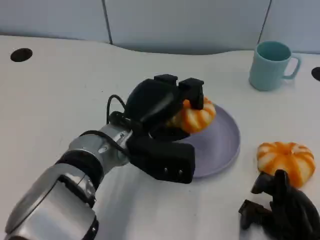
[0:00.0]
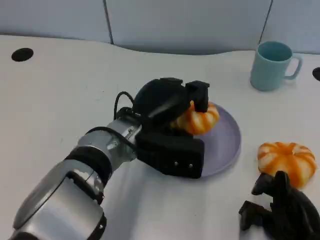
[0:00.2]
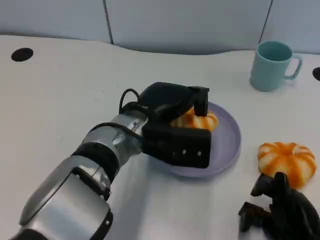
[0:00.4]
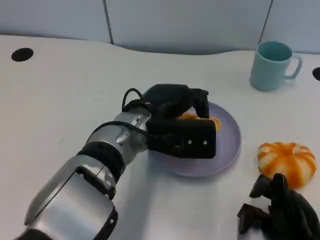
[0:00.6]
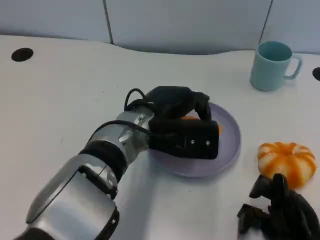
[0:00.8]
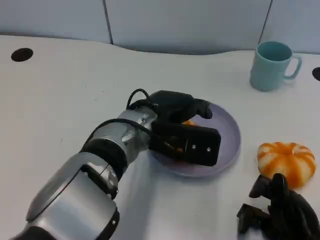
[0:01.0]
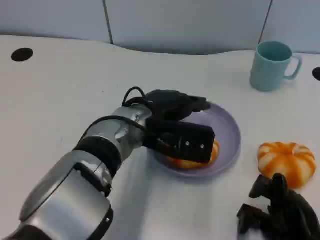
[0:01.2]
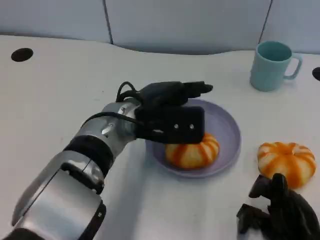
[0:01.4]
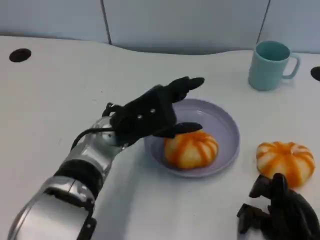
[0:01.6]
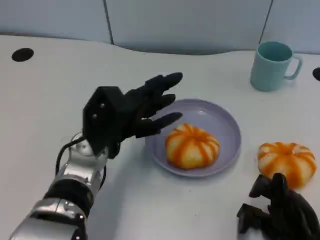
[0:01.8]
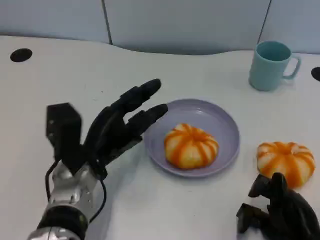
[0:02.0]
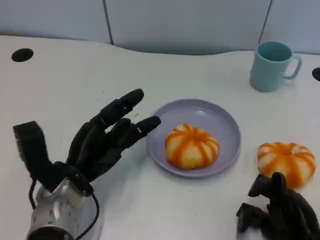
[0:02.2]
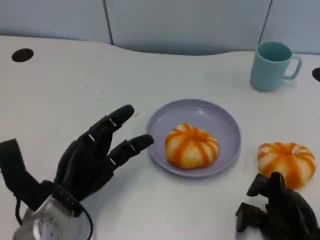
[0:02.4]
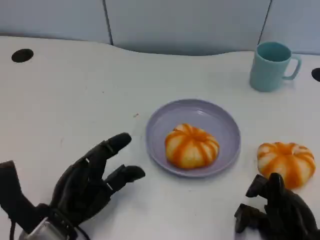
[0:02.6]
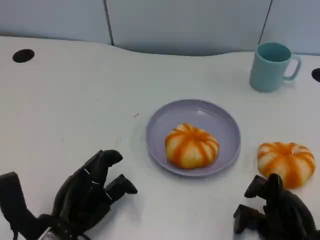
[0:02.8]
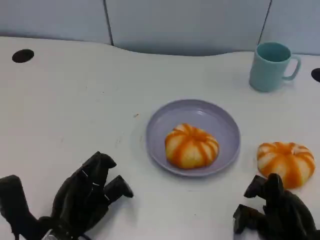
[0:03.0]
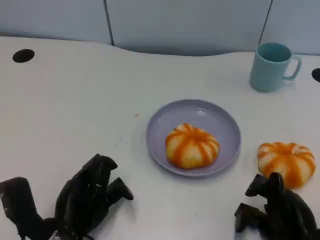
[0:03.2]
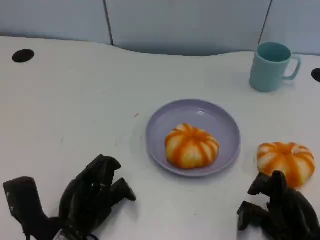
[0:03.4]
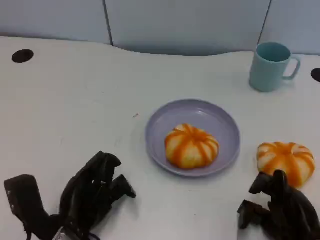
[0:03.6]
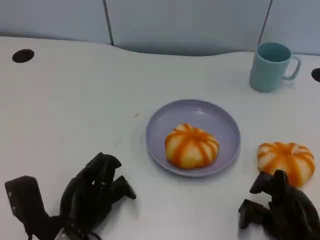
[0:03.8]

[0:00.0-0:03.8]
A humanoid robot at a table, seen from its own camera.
Task of the whole recording: Grasp the bread from the table and place it into the plate.
0:01.2 to 0:02.6: The left hand heads to the left, backward and downward, covering some 20 cm.
0:02.6 to 0:03.8: The hands move only a little.

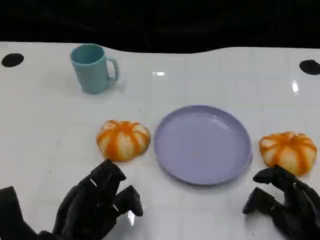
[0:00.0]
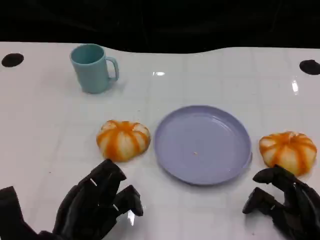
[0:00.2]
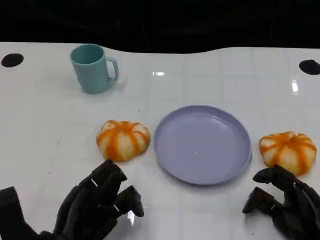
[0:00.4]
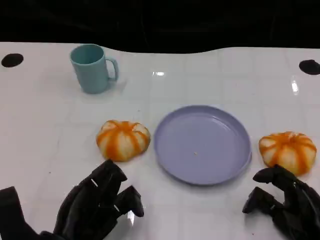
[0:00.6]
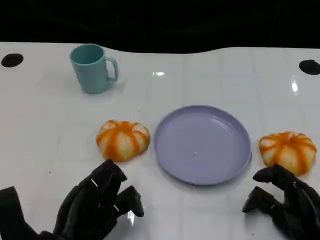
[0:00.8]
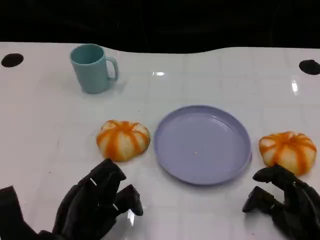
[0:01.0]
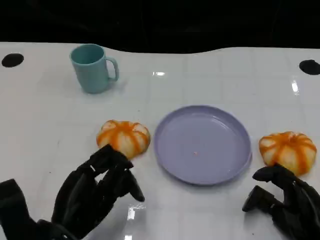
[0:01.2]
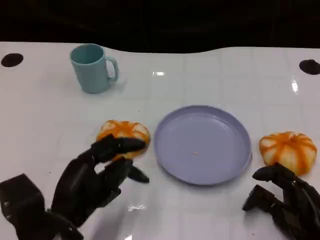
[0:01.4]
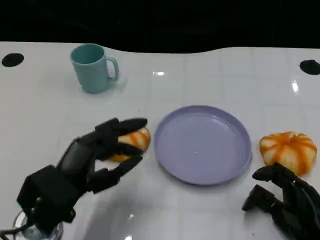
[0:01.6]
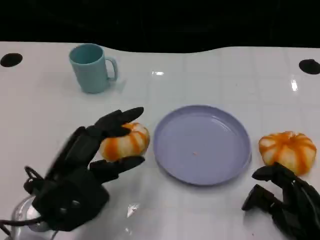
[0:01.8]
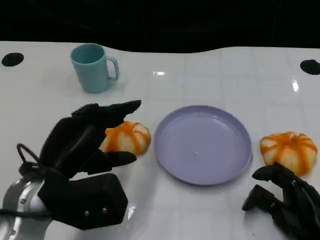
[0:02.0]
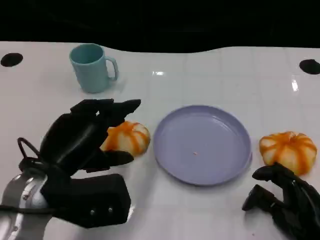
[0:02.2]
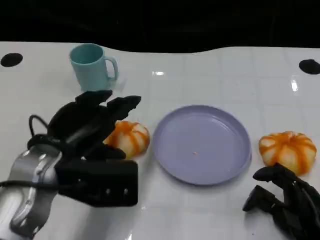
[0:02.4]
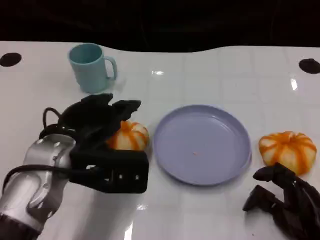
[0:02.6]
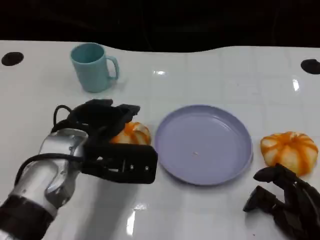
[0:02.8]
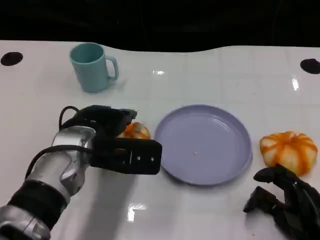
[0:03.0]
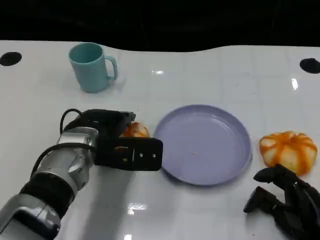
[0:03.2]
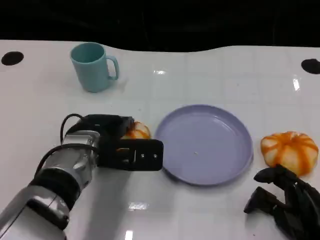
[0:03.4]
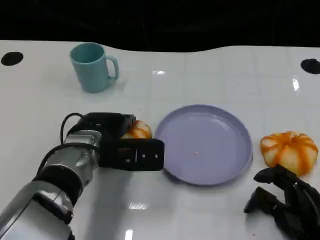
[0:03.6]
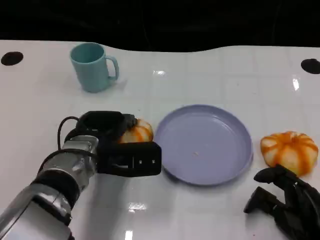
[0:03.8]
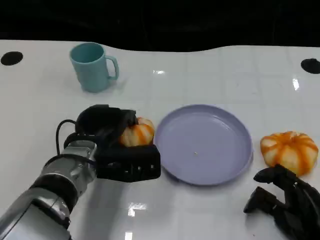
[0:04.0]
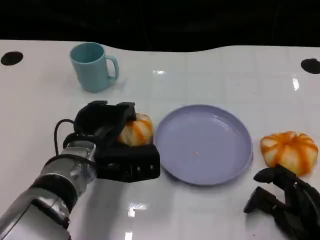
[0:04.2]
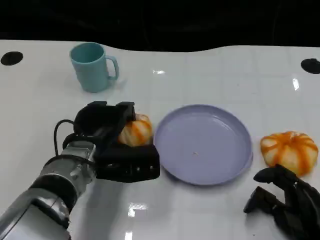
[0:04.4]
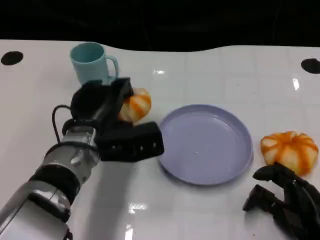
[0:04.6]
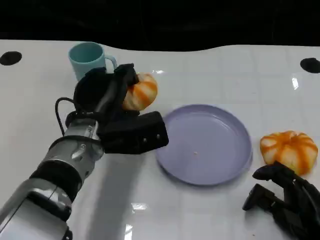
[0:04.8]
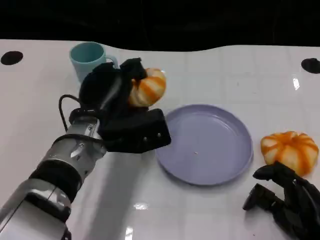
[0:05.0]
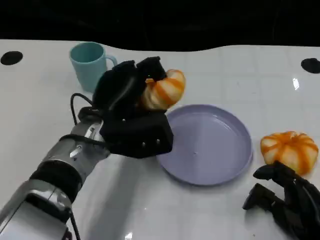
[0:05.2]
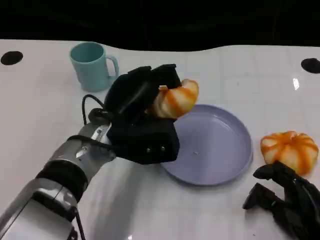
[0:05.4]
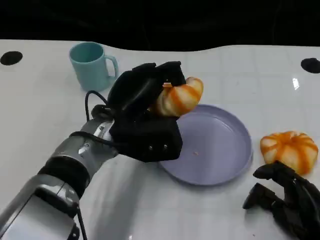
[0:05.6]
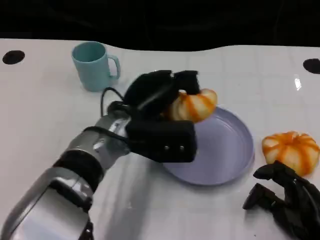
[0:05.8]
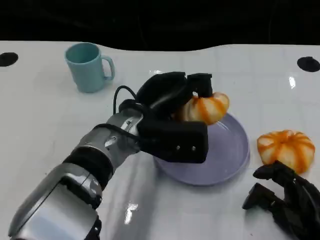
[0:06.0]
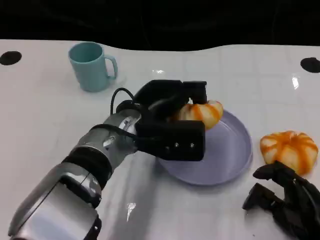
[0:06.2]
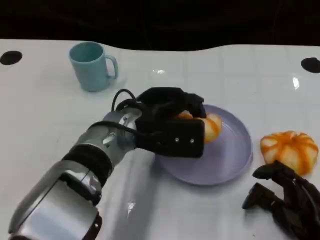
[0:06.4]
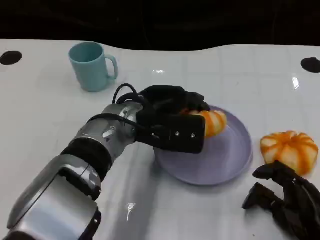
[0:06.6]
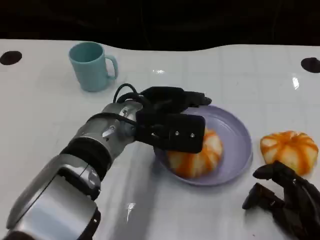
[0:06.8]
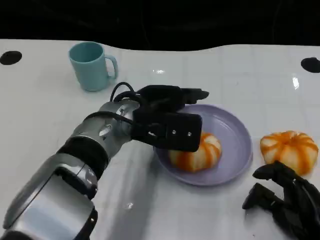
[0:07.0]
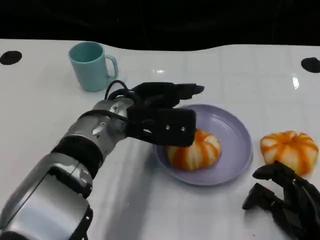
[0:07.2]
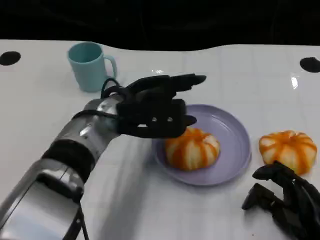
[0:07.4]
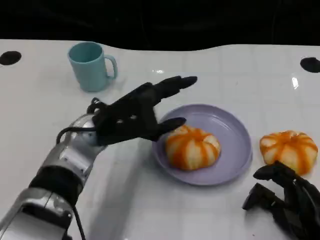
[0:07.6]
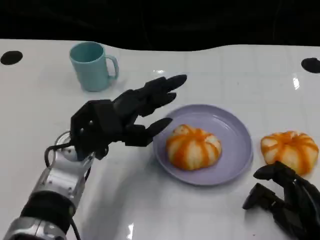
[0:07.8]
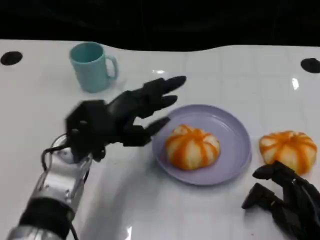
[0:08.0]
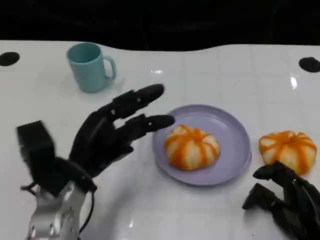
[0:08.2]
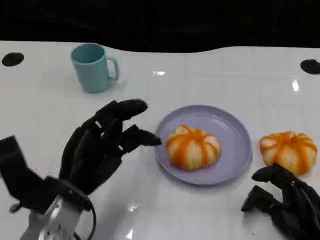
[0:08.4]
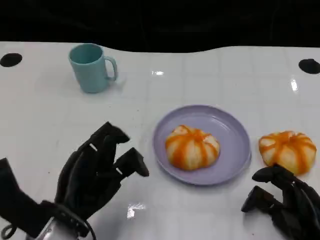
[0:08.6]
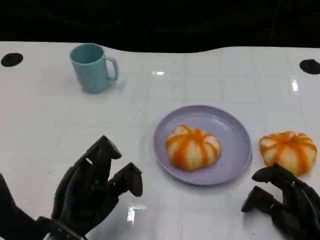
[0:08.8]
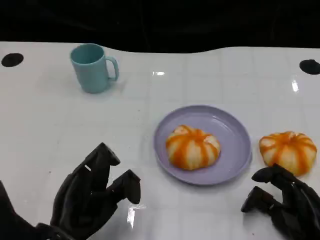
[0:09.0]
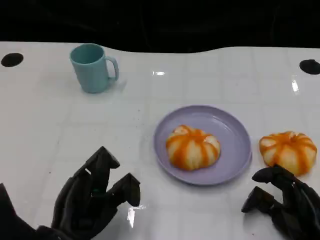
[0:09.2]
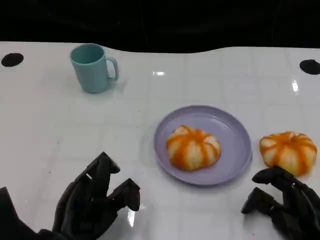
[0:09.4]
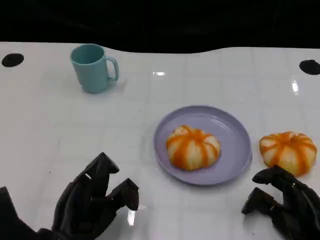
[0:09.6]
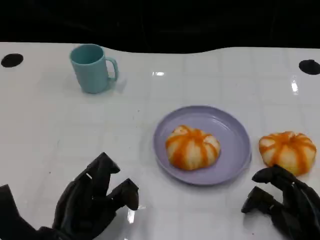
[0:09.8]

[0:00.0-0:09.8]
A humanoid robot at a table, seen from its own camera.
Task of the whole recording: Grasp the bread from the table and place it into the plate.
0:01.4 to 0:02.8: The left hand moves forward and upward, about 10 cm.
0:02.8 to 0:04.2: The left hand travels downward by about 5 cm.
0:04.2 to 0:05.6: The left hand moves upward, some 5 cm.
0:07.0 to 0:08.4: The left hand is displaced backward, to the left and downward by approximately 15 cm.
0:08.4 to 0:09.8: The left hand changes place by approximately 5 cm.

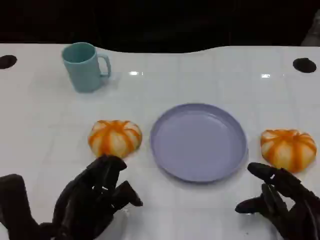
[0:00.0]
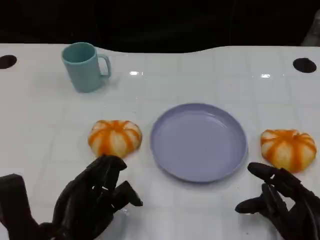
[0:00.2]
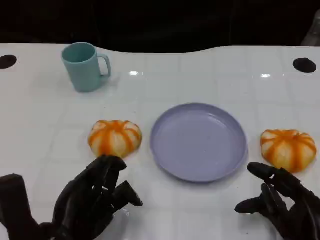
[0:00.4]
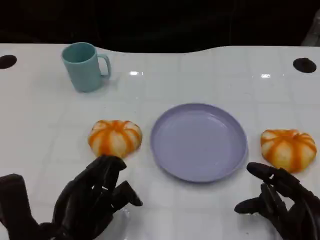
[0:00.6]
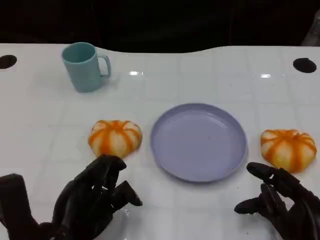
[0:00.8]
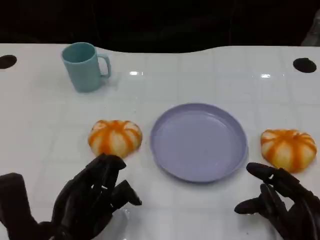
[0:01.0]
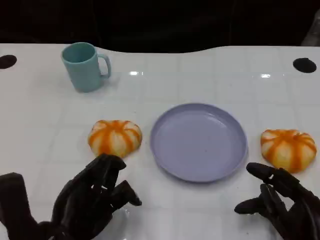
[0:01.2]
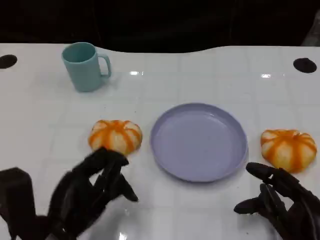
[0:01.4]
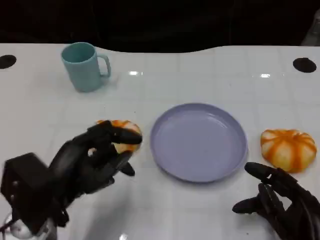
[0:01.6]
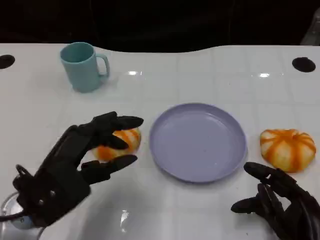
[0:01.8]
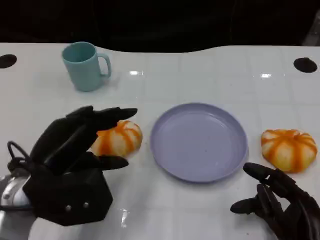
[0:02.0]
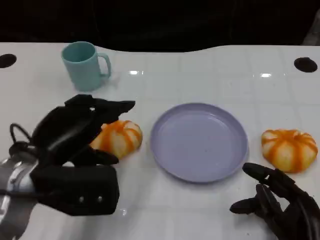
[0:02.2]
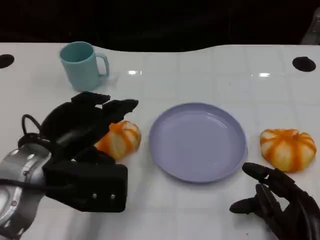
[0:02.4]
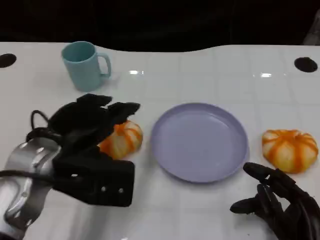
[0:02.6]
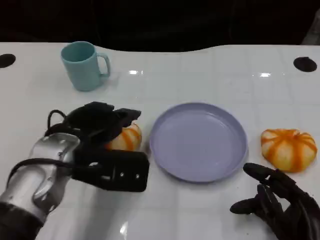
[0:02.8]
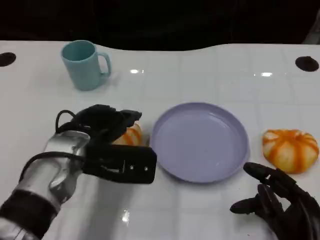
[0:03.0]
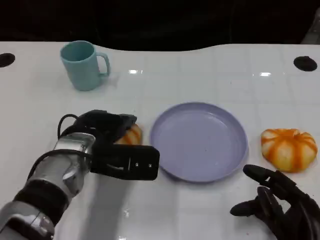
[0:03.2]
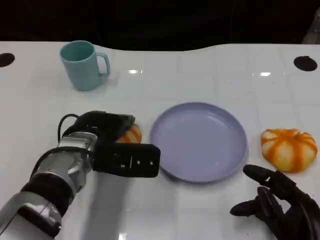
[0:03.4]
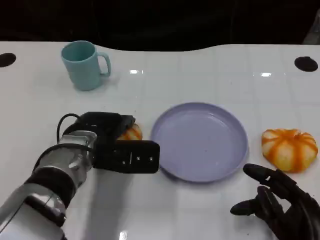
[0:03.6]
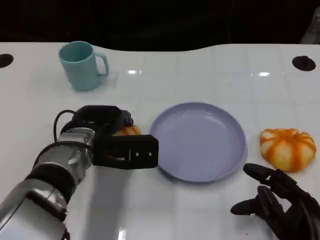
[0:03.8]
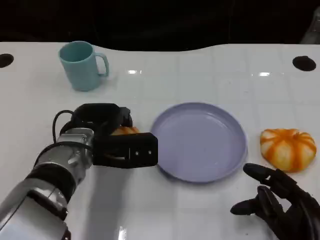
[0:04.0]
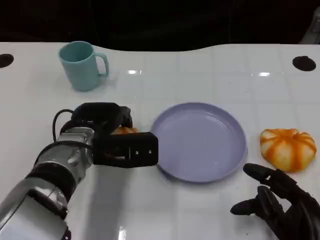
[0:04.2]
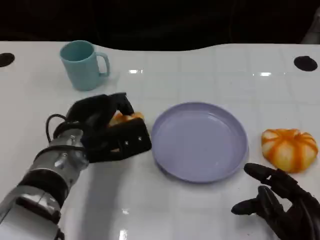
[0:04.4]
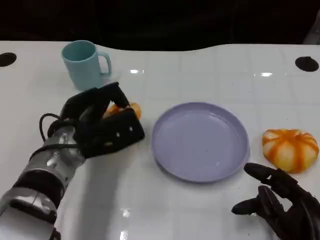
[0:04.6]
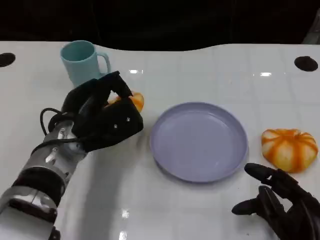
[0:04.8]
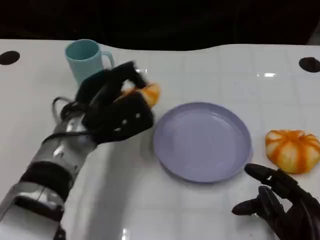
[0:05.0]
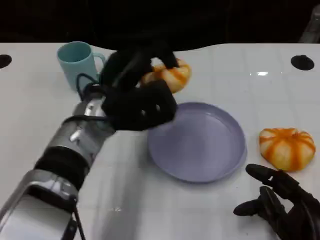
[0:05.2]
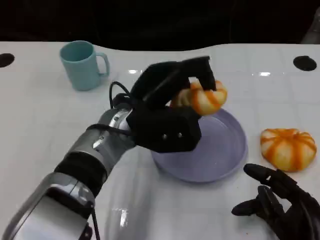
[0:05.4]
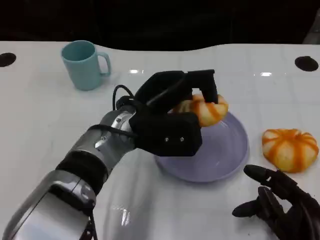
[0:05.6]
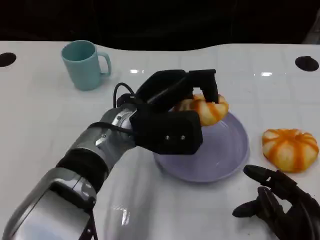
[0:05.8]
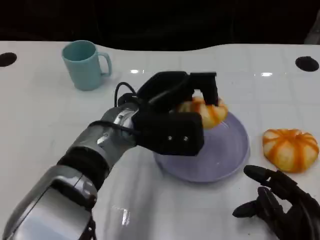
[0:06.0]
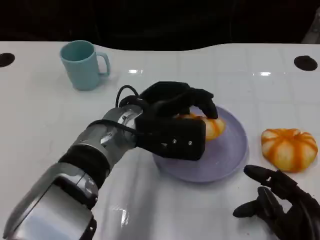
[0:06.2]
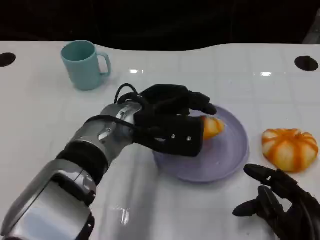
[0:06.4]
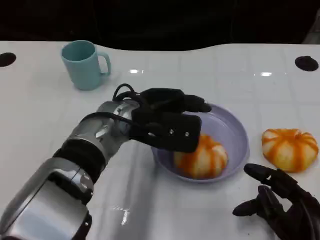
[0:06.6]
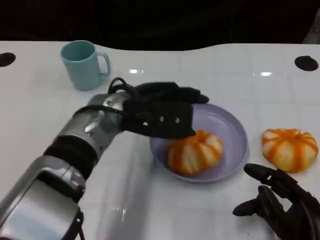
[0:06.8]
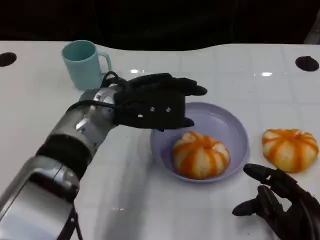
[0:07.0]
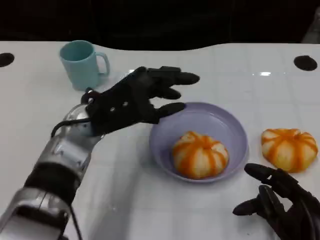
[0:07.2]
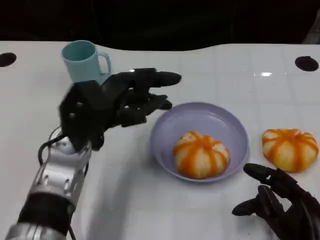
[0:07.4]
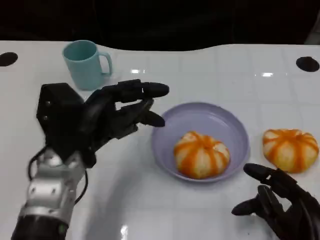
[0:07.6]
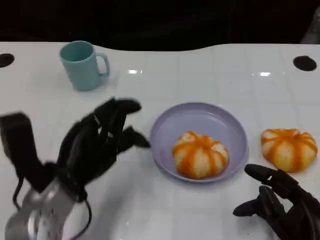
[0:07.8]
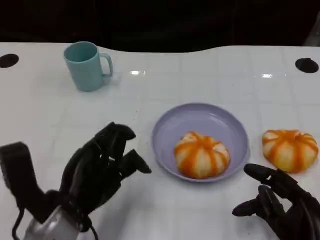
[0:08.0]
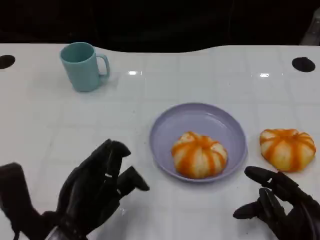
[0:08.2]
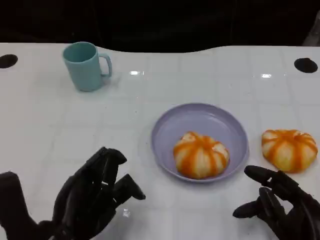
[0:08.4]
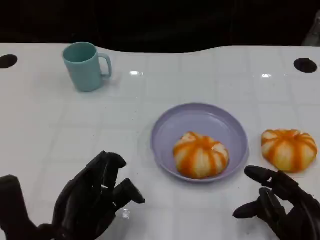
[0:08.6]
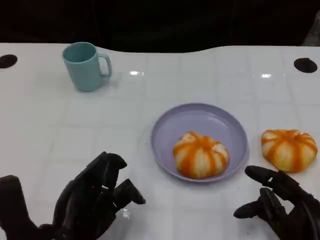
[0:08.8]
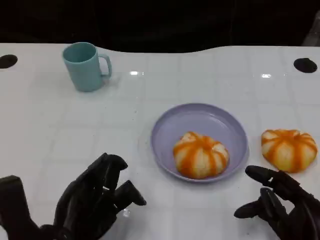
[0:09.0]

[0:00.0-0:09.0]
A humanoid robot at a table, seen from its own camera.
Task of the whole recording: Grasp the bread from the table and place it into the plate.
0:00.0 to 0:01.6: The left hand shifts by roughly 5 cm.
0:01.6 to 0:03.0: The left hand travels forward and to the right by about 10 cm.
0:04.4 to 0:06.0: The left hand heads to the right and upward, covering approximately 10 cm.
0:06.0 to 0:07.6: The left hand moves to the left, roughly 10 cm.
0:07.6 to 0:09.0: The left hand shifts roughly 10 cm backward.
